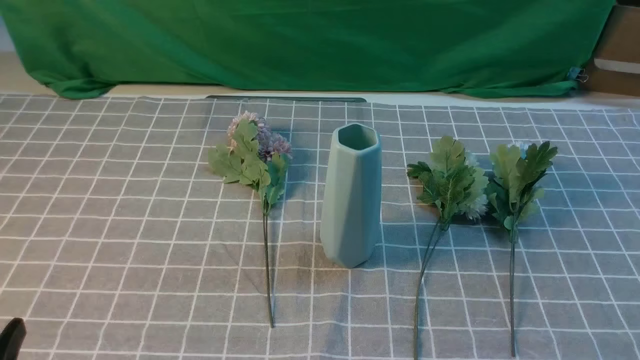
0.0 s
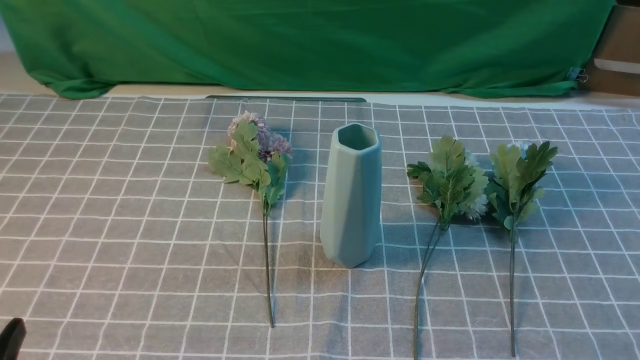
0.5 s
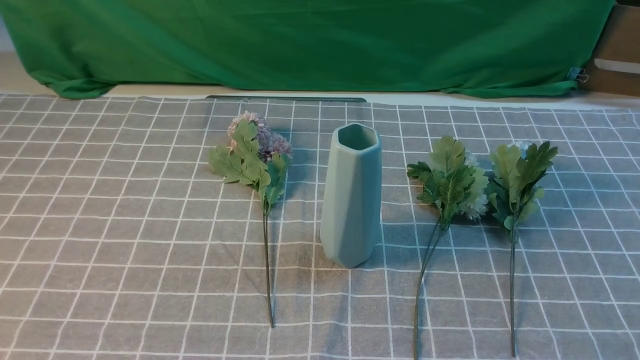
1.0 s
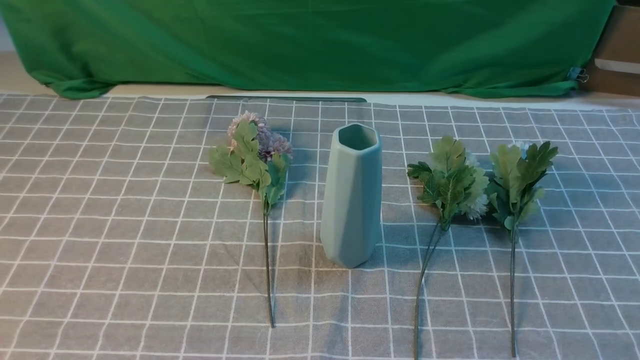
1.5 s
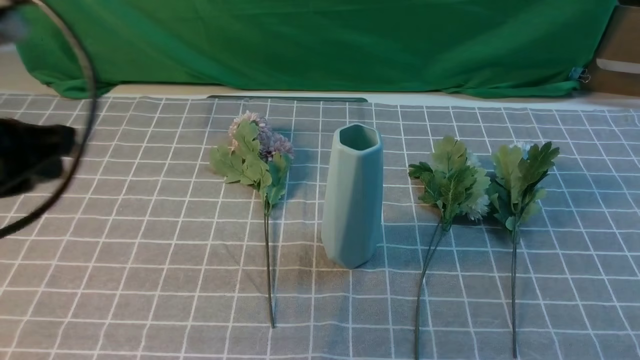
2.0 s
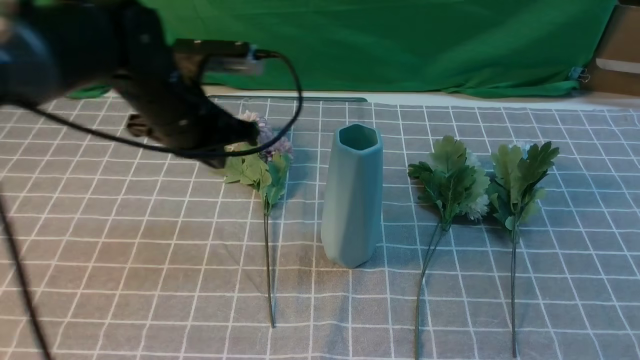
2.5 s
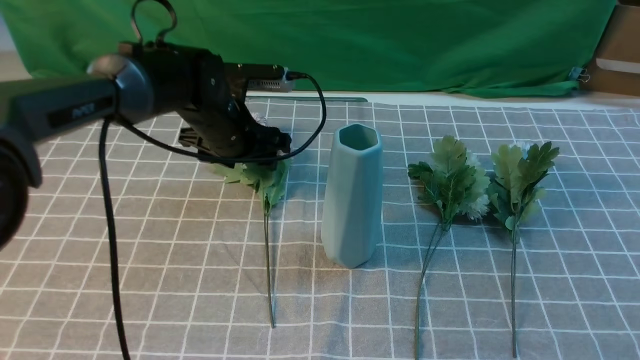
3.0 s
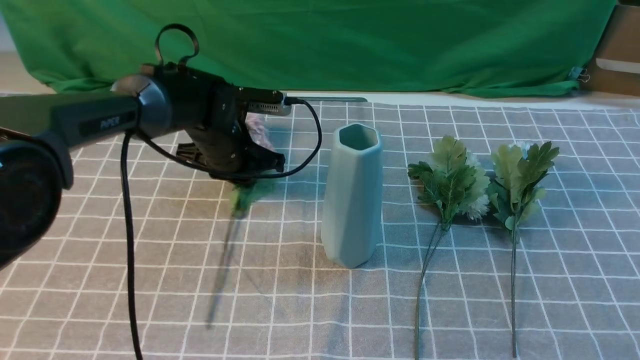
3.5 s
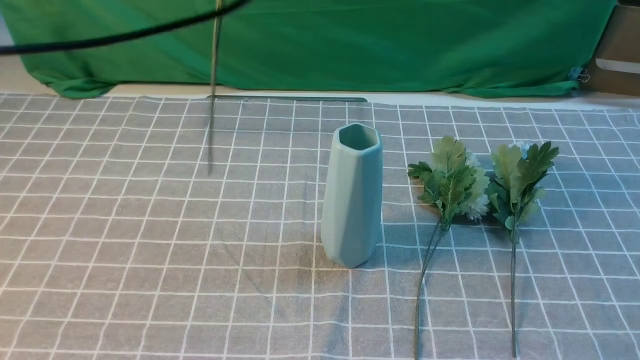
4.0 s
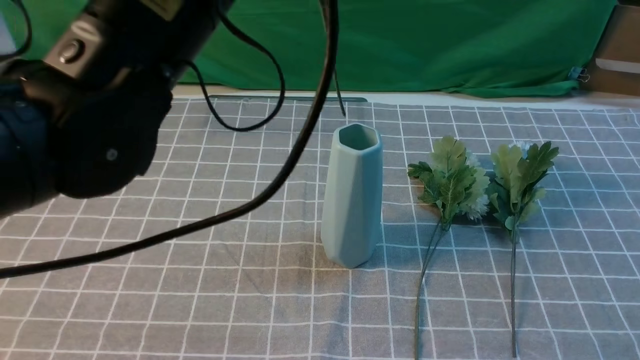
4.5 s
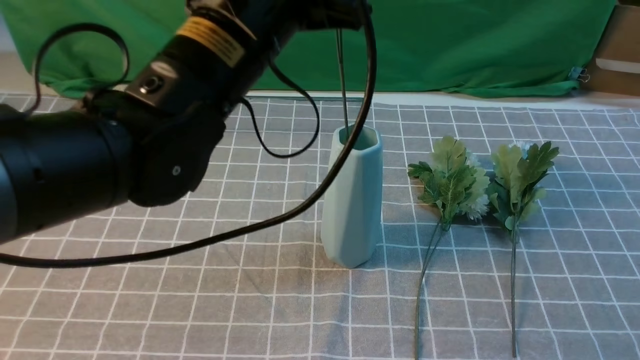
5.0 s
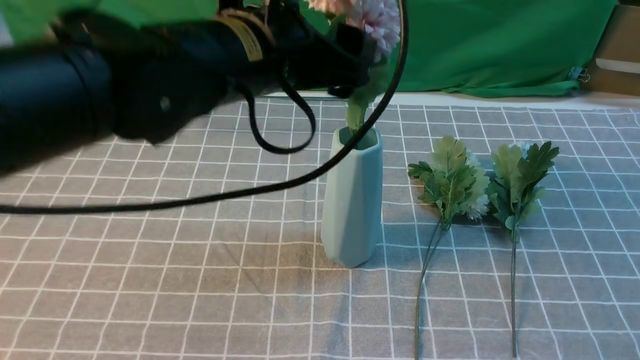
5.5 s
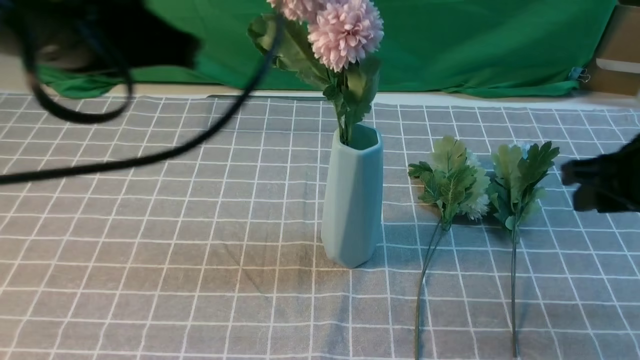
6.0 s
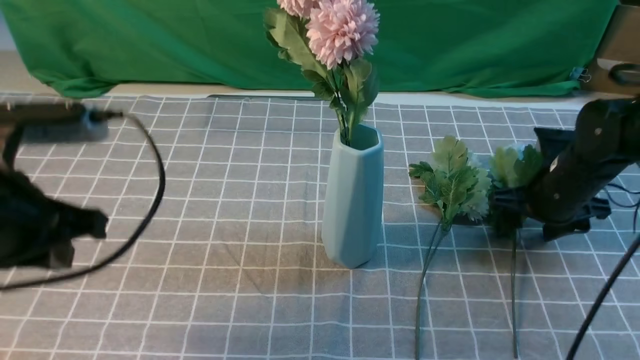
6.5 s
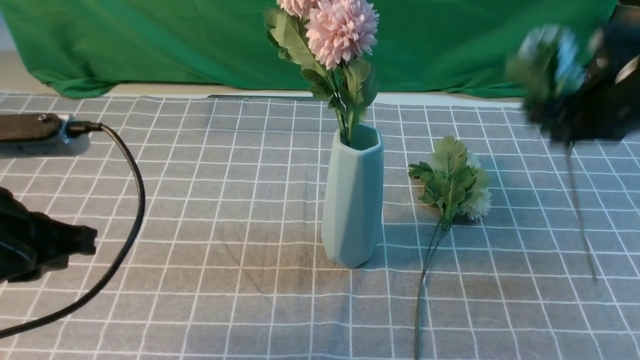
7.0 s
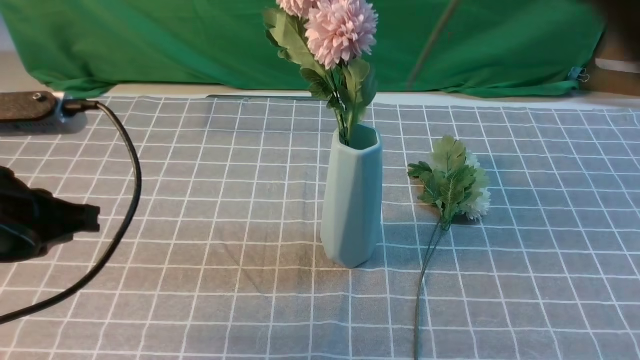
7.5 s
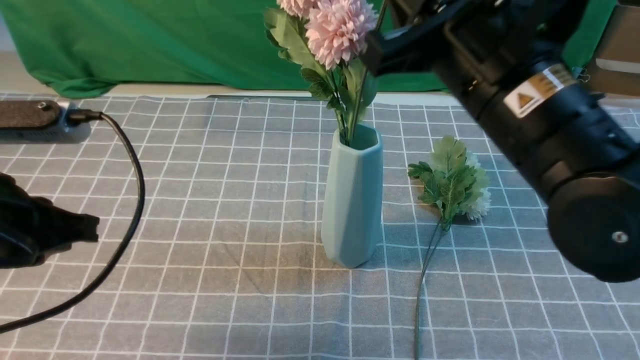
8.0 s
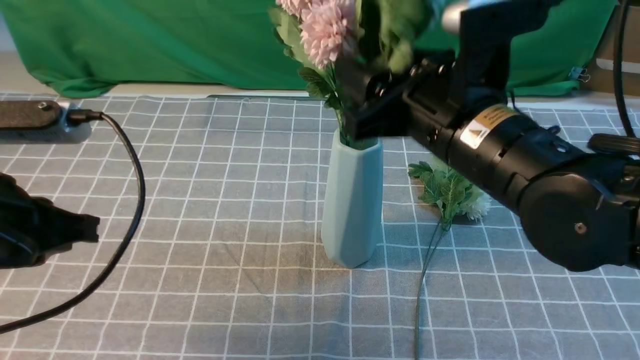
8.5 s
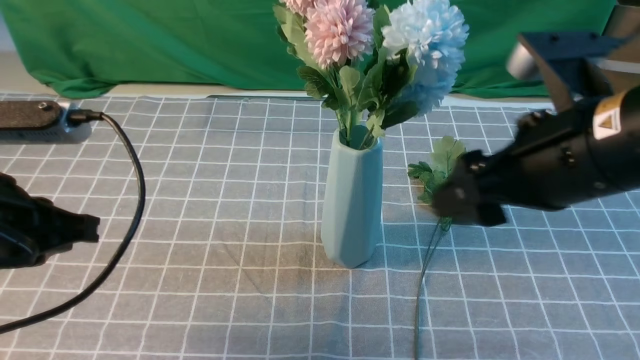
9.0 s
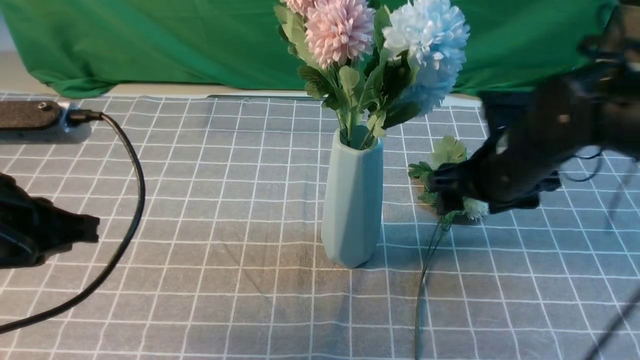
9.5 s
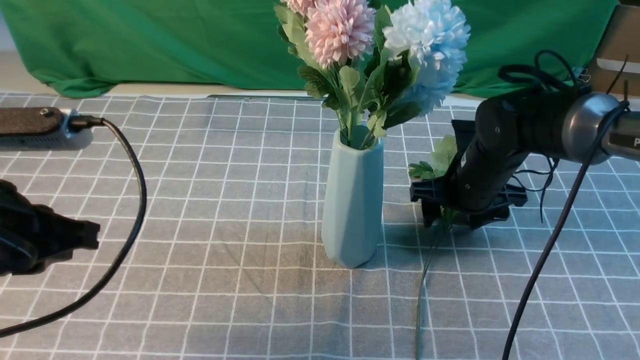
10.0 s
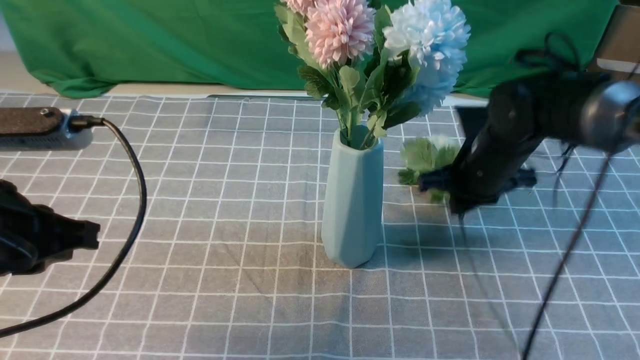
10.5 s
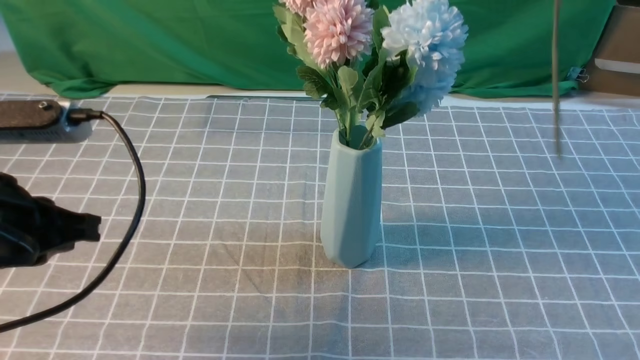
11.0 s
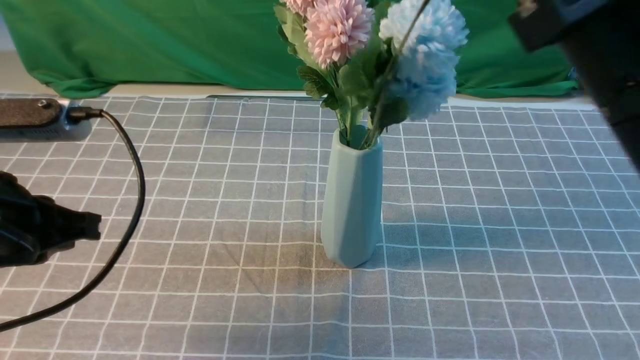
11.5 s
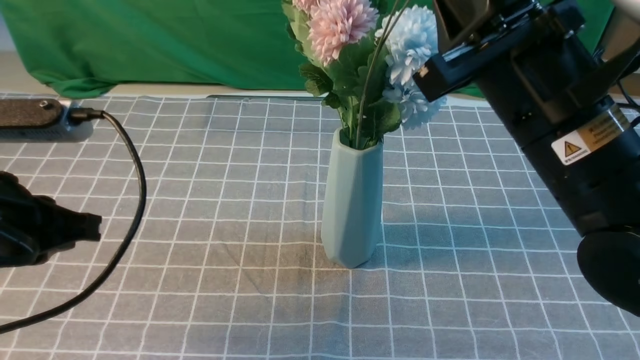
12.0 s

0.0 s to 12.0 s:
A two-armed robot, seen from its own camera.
Task of the whole recording: insert the flowers into the vase on the table with the grey tablecloth.
Step, 0.0 to 3.5 s: use the left arm to grab a bunch of fresh flowers.
Step, 4.0 to 5.5 s: use the left arm to insert the flowers into the vase.
Step, 6.0 to 6.5 s: use the right arm to grab a bunch of fresh flowers.
Step, 7.0 to 8.5 s: use the right arm to insert the flowers into the vase.
Step, 9.0 to 10.0 s: use the right arm to grab a bunch of fresh flowers.
0.0 to 2.0 s: The right gripper moves upward, approximately 5 cm. The left gripper moves forward and upward, some 25 cm, and closes up.
2.0 to 4.0 s: The left gripper travels to the right and forward by roughly 15 cm, travels downward and back again, roughly 15 cm each way, and opens and closes again. The right gripper shifts roughly 10 cm upward and forward.
4.0 to 6.0 s: The right gripper is displaced forward by some 15 cm, and opens up. The left gripper shifts about 10 cm backward, and opens and closes again.
6.0 to 8.0 s: The right gripper goes up and down, approximately 25 cm each way, reversing 2 times, and closes. The left gripper travels downward and to the left by some 15 cm.
8.0 to 10.0 s: The right gripper shifts approximately 25 cm downward and forward, and opens its fingers.
10.0 to 12.0 s: The right gripper travels upward and backward by approximately 25 cm, and closes up.

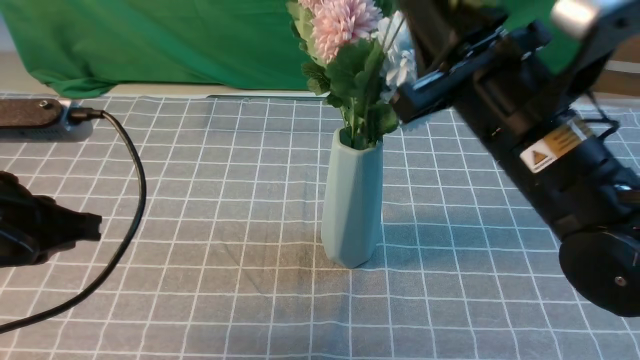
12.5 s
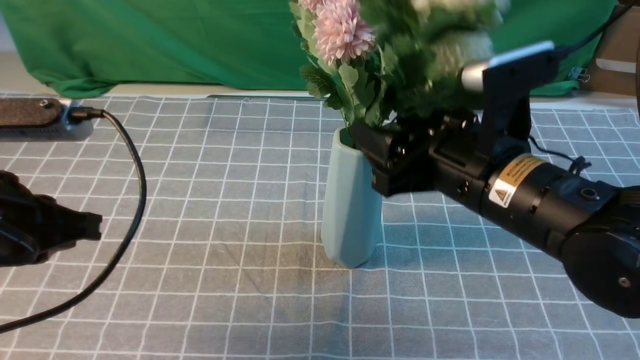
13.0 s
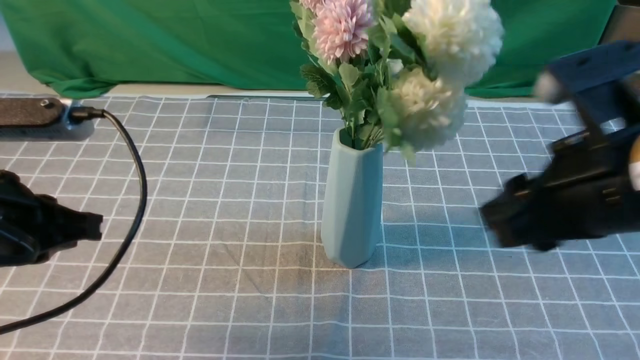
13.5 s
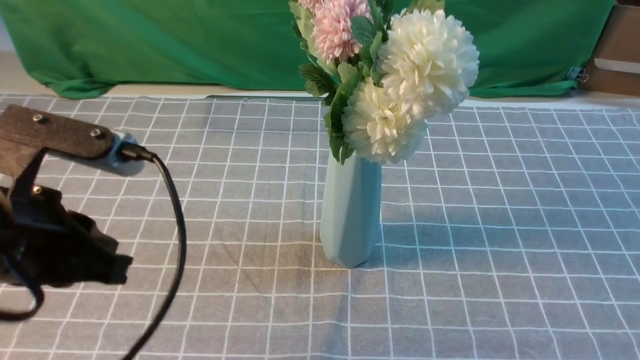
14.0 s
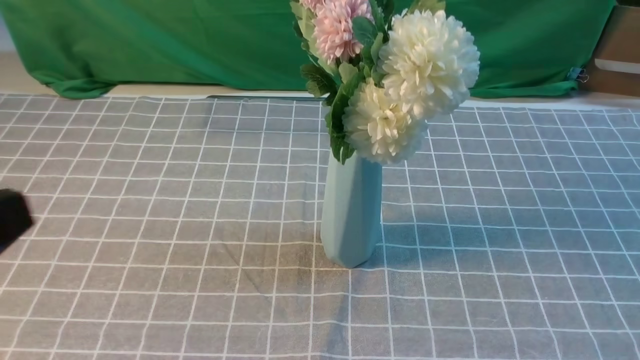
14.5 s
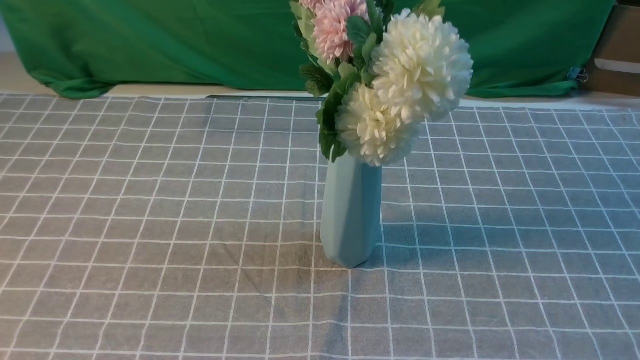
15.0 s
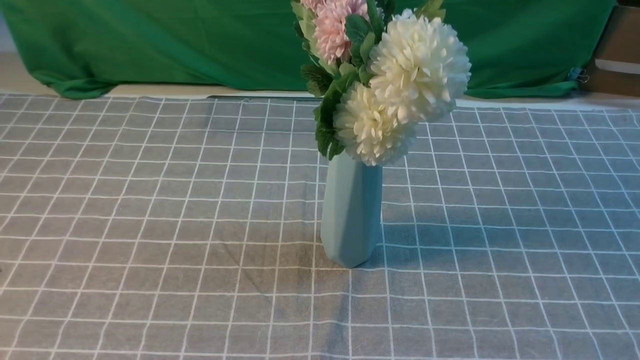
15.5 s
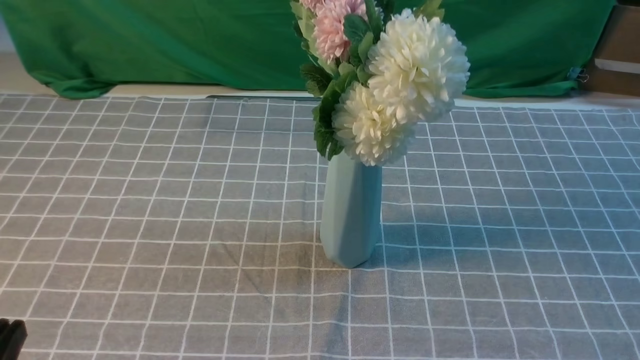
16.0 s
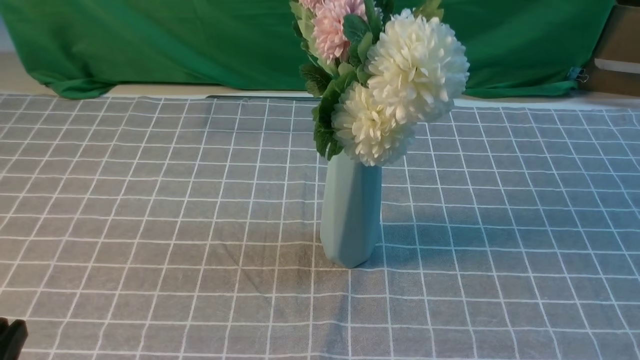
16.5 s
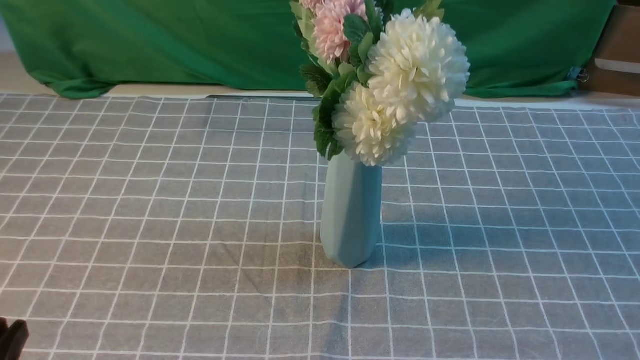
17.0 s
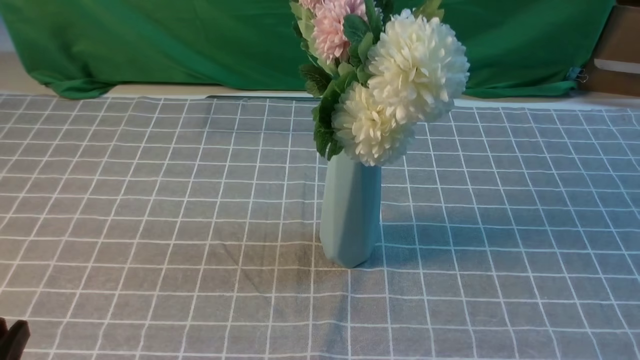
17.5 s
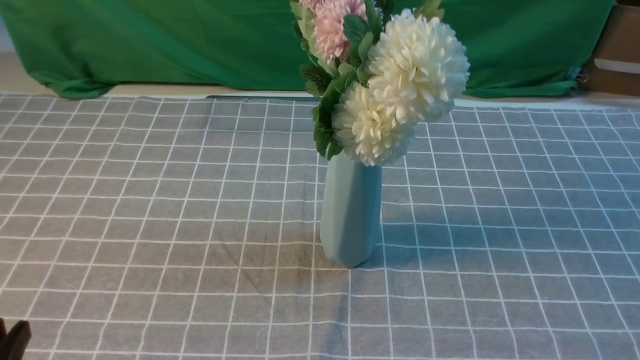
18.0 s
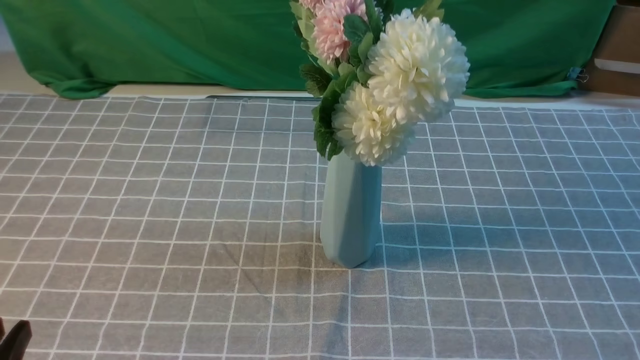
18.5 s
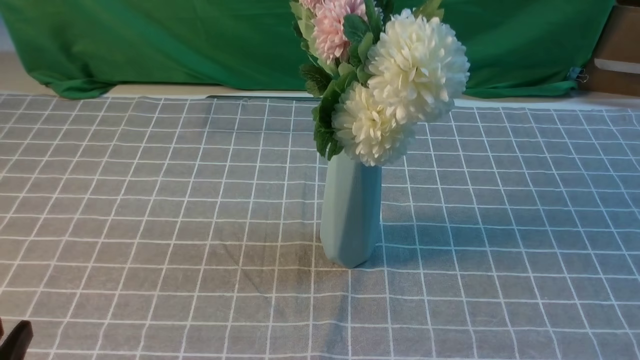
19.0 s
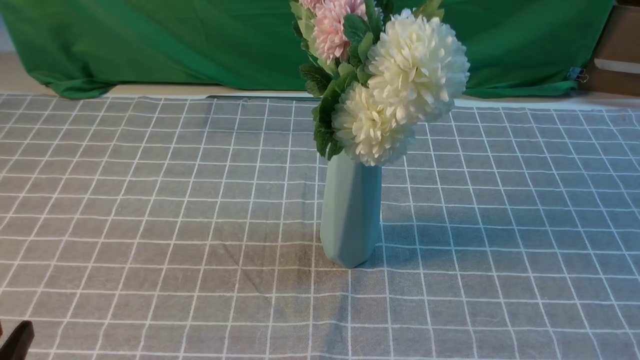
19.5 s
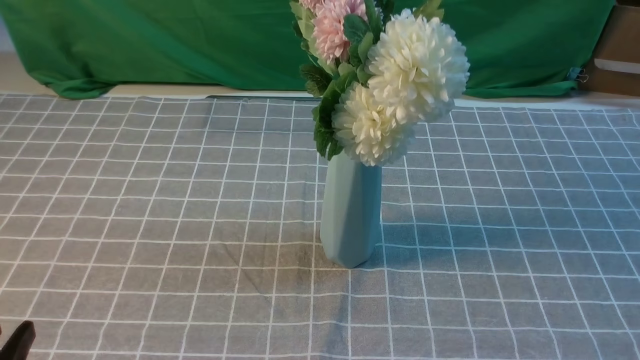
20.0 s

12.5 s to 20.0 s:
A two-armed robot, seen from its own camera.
Task of the whole recording: insert the flowers into the vase on the table with the grey tablecloth.
12.5 to 14.5 s: The right gripper goes roughly 30 cm backward and to the right, and opens, then closes once more. Meanwhile the left gripper goes roughly 15 cm backward and upward.
14.5 to 16.5 s: The left gripper is displaced downward by some 15 cm.
